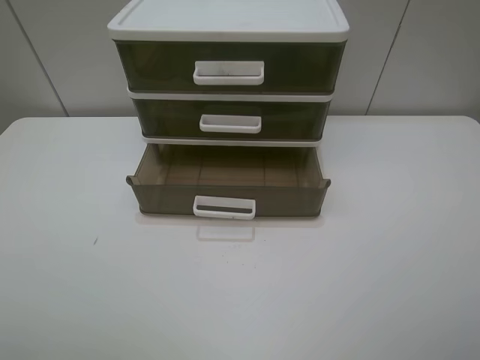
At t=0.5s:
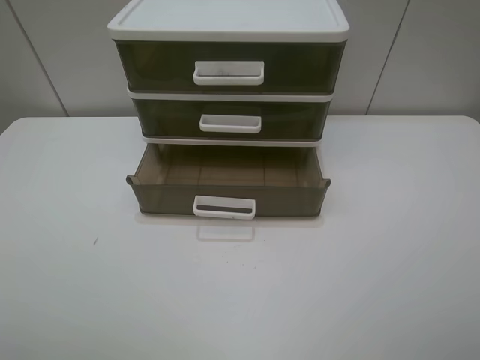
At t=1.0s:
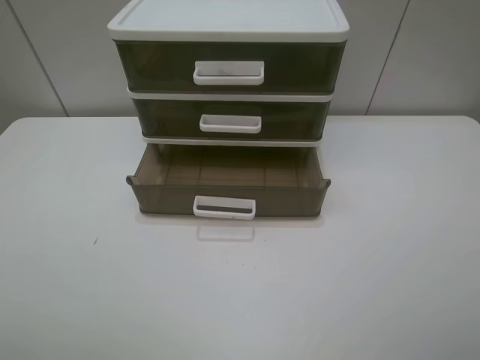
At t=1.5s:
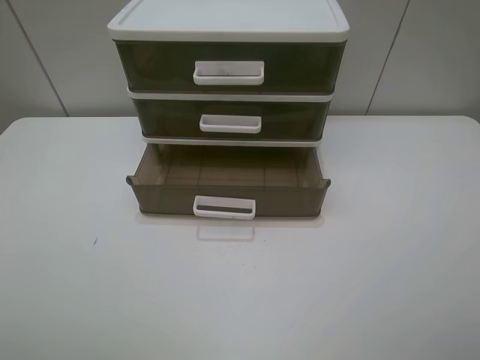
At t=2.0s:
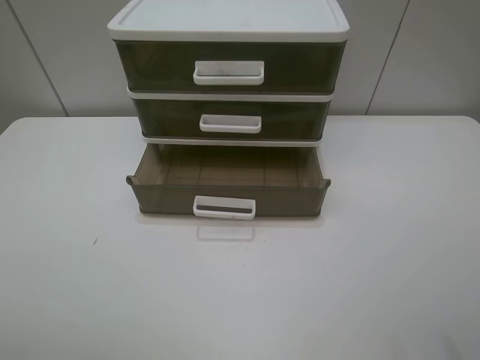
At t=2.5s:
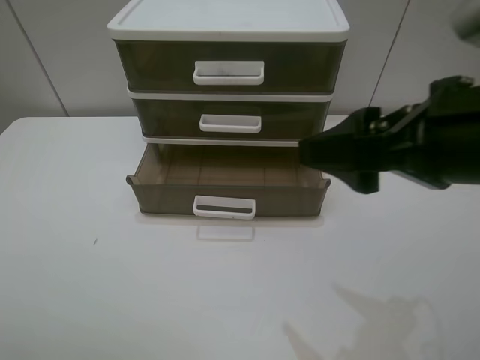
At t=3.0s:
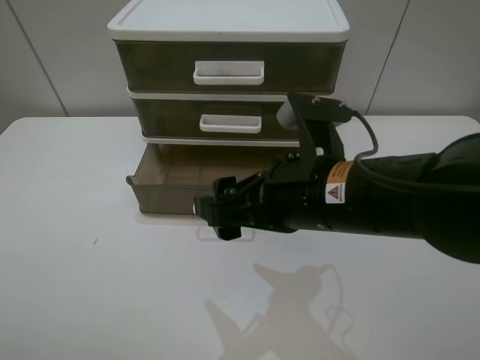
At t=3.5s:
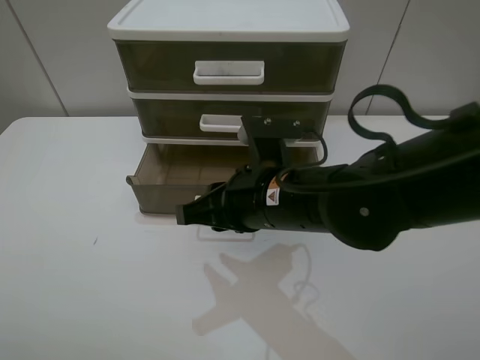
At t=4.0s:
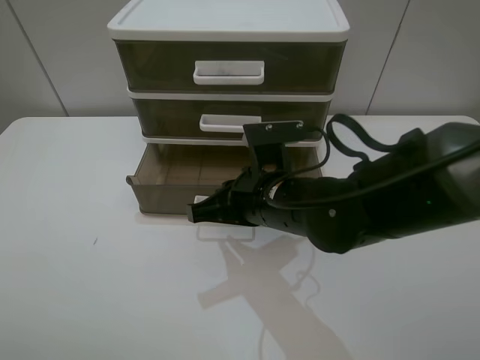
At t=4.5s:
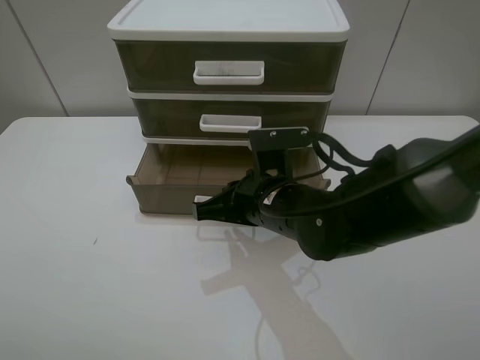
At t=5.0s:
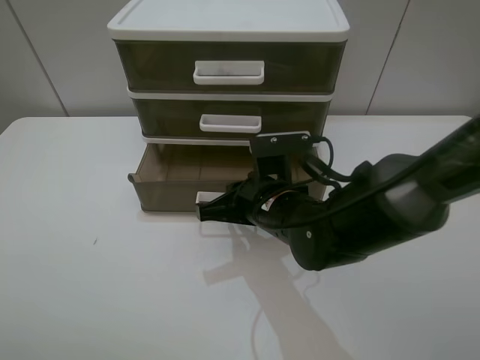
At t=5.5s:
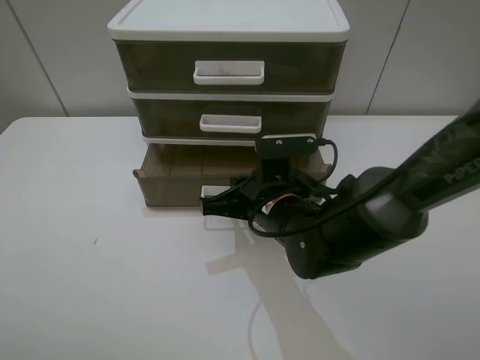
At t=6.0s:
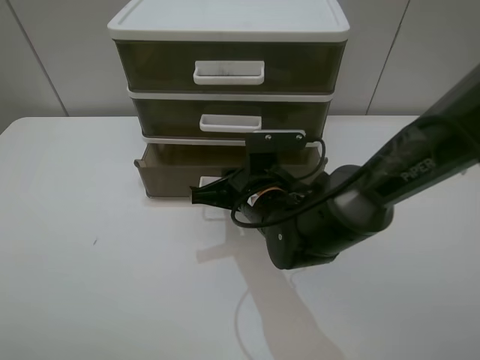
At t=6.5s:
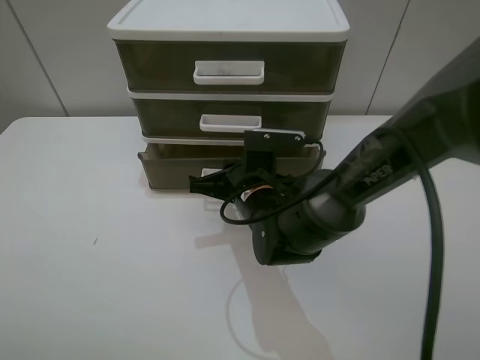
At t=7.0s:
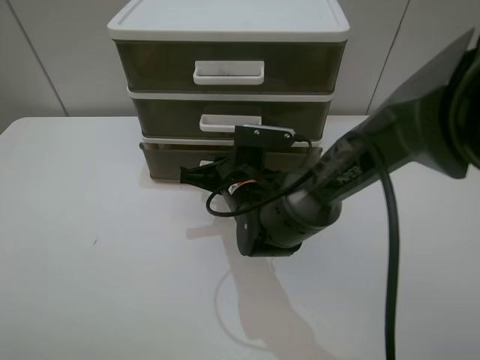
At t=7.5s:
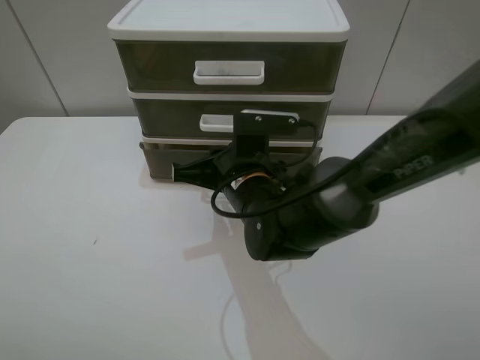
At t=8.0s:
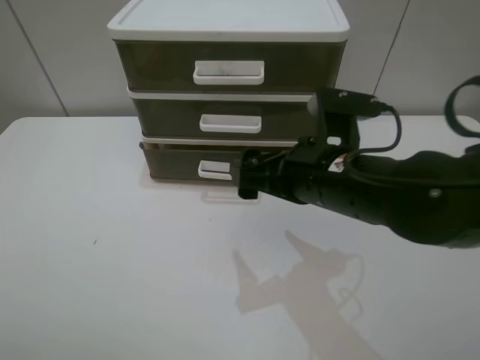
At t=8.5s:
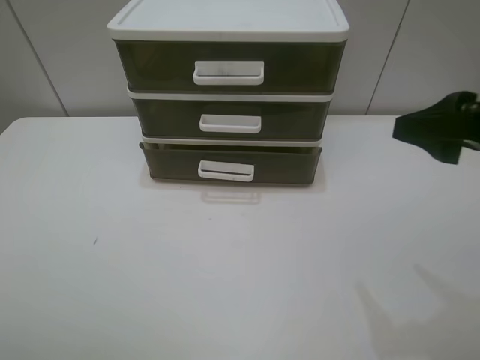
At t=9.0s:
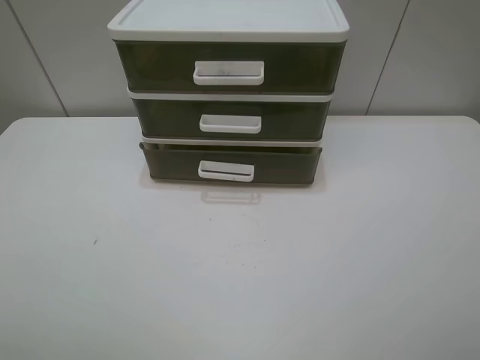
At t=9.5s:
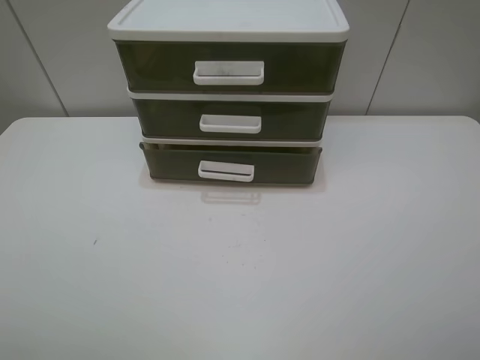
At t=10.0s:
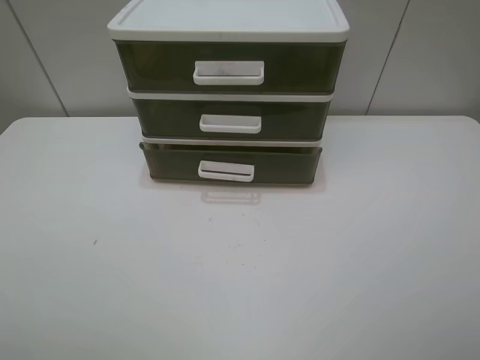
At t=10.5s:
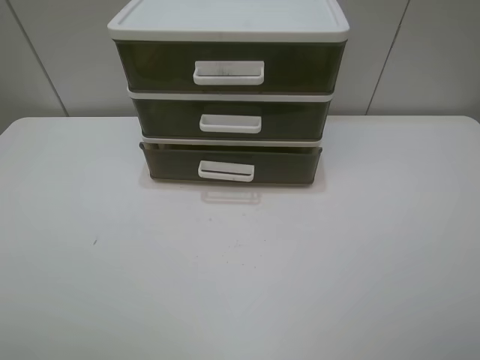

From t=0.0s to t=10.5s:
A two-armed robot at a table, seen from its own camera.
Task of the whole recording: close the bottom drawer.
Step, from t=0.0s to t=4.0s: Use the right gripper to contact the bottom layer of the storage cabinet.
Step, from t=4.5s to t=7.0s: Push the bottom drawer closed.
From t=2.0s to t=4.0s: The right gripper travels to the left, downward and forward by roughly 35 cm, and closes up.
From t=4.0s to t=6.5s: The right gripper shifts some 10 cm downward and forward.
From t=6.5s to t=8.5s: The right gripper moves to the right, upward and backward, approximately 35 cm, and opens.
From t=8.5s to t=10.5s: The right gripper shifts roughly 15 cm backward.
